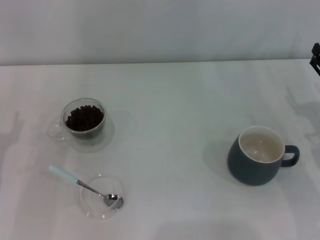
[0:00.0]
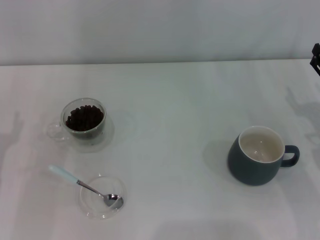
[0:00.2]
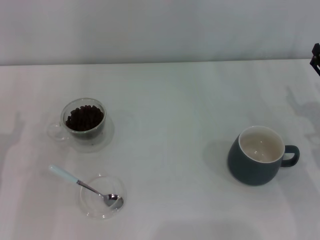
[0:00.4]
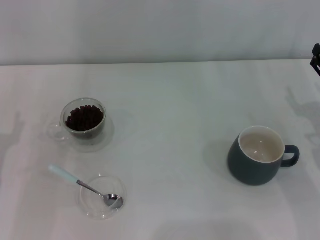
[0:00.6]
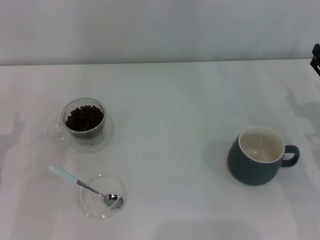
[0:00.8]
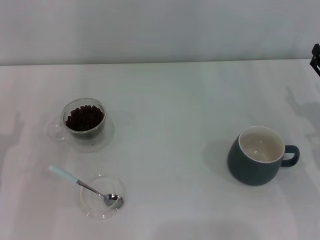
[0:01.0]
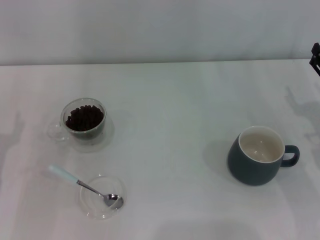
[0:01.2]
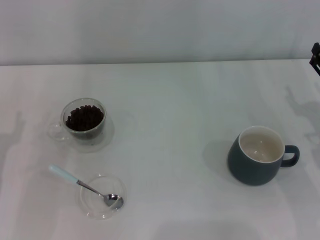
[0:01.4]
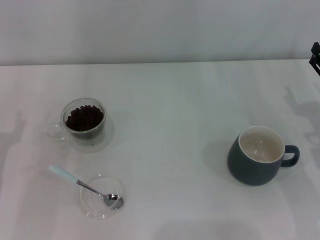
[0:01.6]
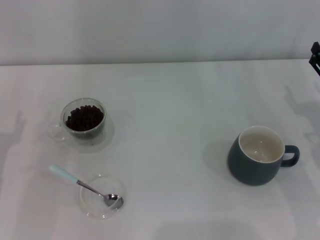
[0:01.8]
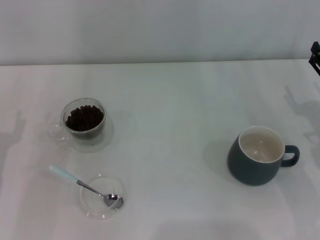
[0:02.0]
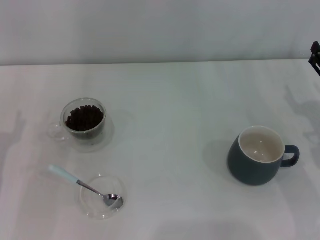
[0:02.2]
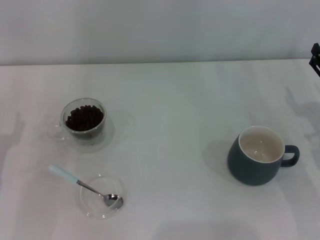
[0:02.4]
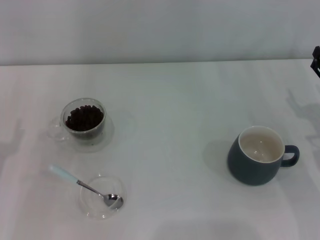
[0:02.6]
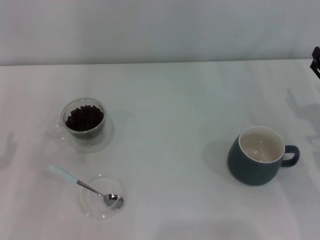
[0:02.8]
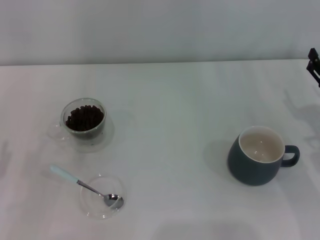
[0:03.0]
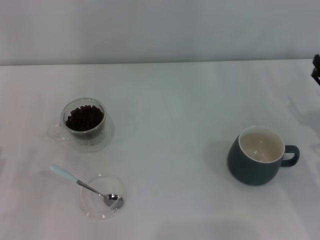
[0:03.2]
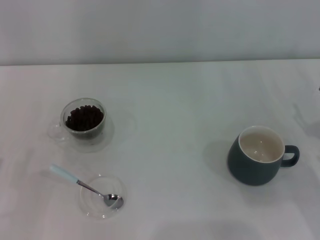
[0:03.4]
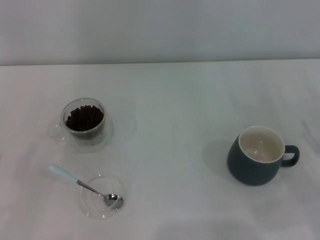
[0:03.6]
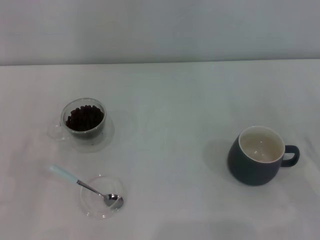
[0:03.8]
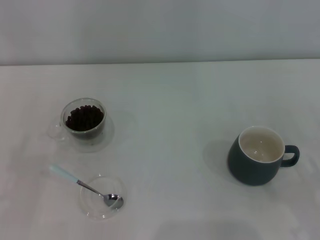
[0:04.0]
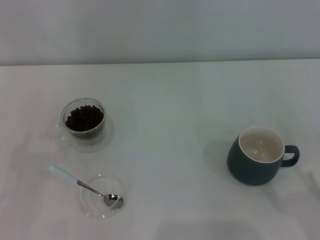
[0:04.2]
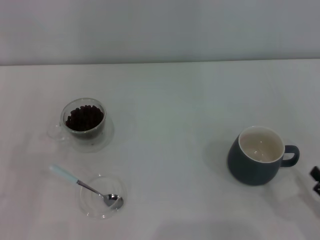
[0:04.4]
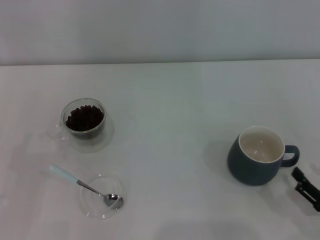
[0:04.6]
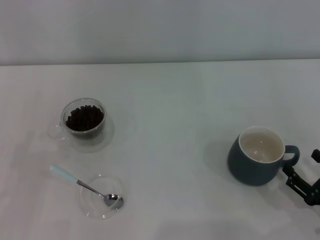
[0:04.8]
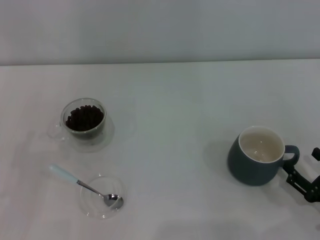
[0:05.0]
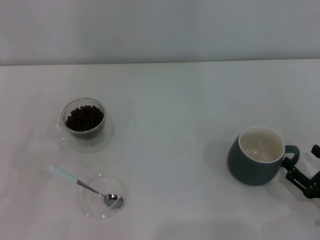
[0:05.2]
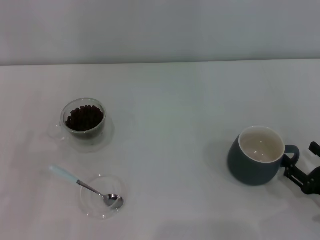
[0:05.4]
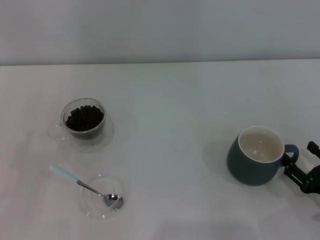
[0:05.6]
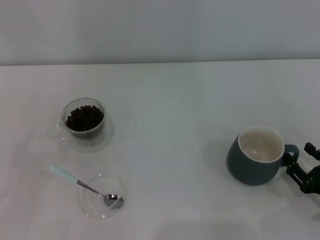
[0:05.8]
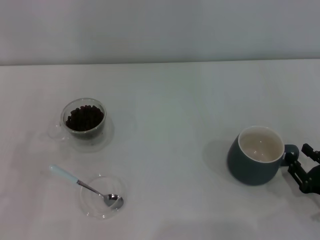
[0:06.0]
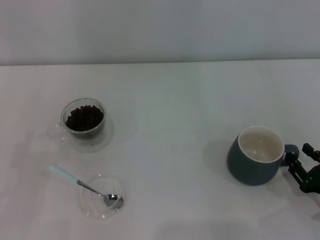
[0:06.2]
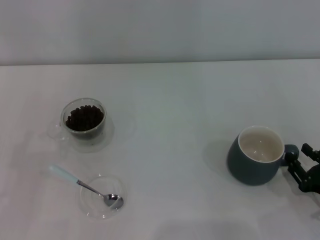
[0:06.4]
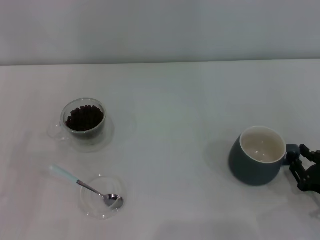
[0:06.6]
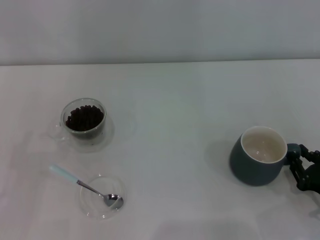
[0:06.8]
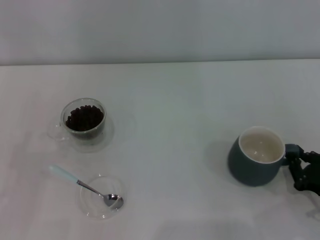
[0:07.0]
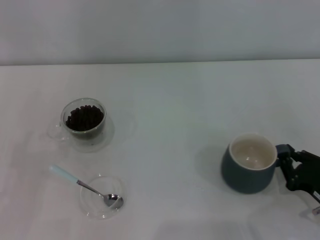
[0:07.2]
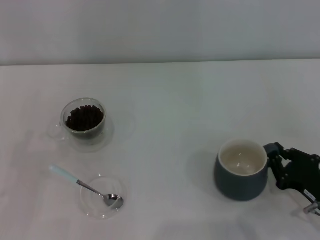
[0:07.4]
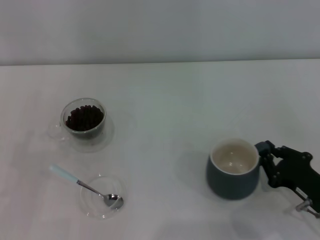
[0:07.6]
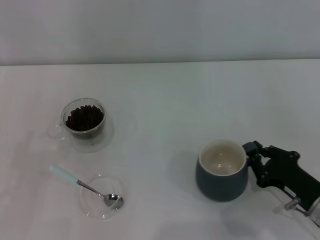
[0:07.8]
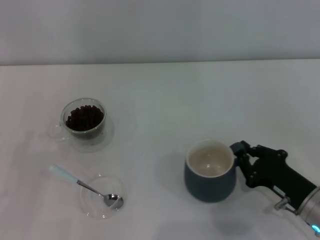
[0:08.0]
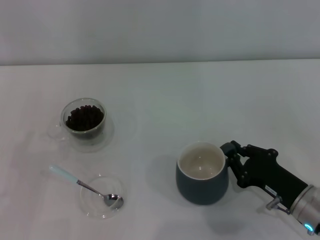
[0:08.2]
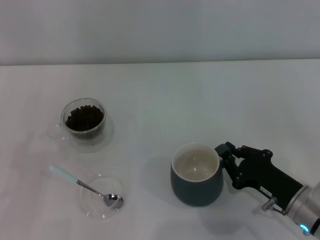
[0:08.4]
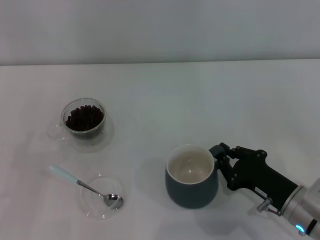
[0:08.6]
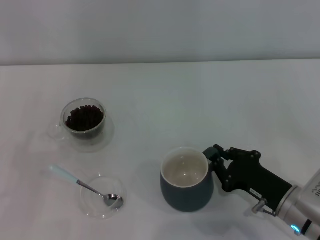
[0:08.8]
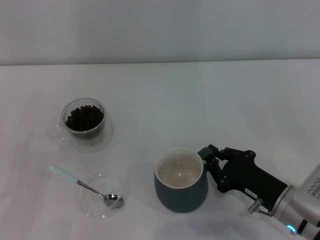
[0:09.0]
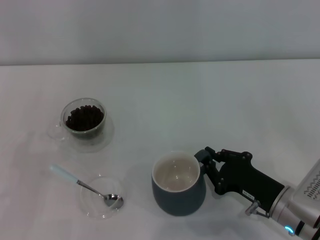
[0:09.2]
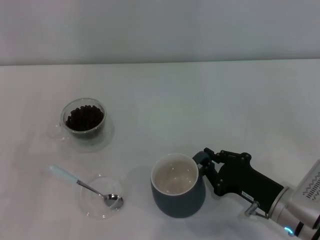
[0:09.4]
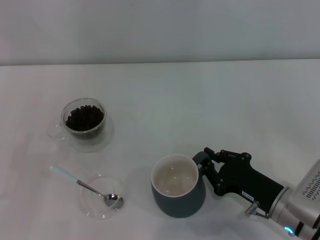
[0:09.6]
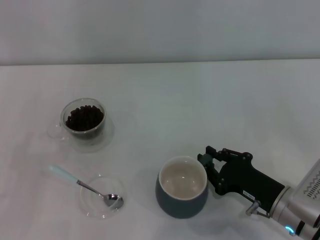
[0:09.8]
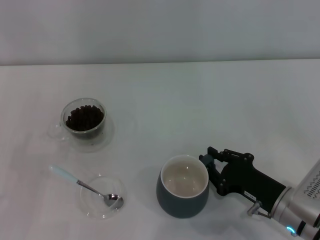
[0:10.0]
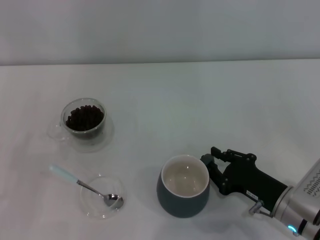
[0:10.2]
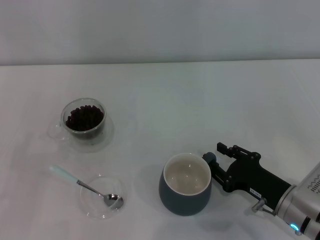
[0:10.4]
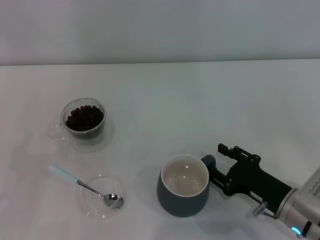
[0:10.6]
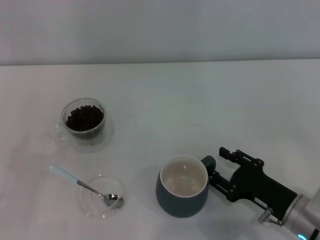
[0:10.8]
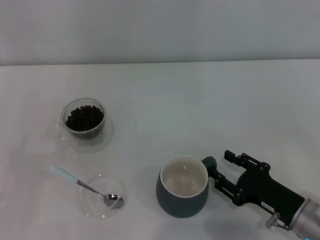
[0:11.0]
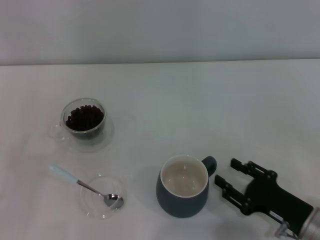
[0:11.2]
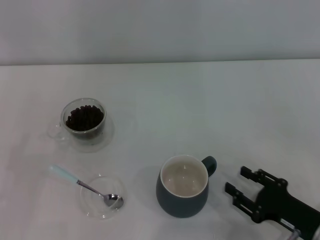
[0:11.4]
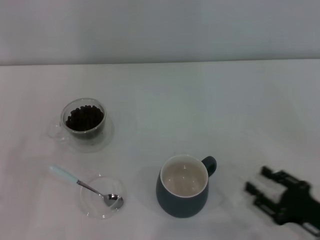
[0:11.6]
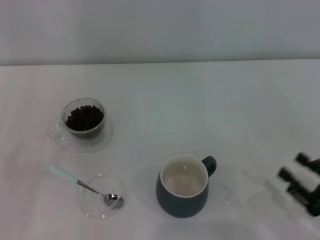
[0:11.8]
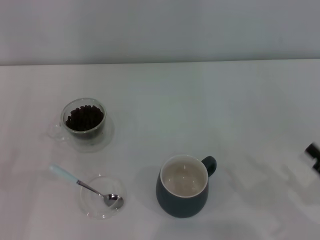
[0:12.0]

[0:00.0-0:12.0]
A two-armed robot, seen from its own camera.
Task of the whole recording: Use a blue spoon to take out the coffee beans from the glass and pour them into the gray cup.
Step, 0:00.0 to 0:11.2: Move the cup to the center of view with the left gripper.
0:00.0 to 0:01.6: Both grippers stay about where they are.
0:03.0 to 0:04.4: The right gripper goes roughly 15 cm backward.
0:04.4 to 0:06.0: The right gripper shifts roughly 5 cm forward, and closes its fingers.
0:06.0 to 0:07.6: The right gripper closes.
0:07.6 to 0:09.0: The right gripper travels to the left by roughly 5 cm.
0:09.0 to 0:10.4: The two grippers keep their place.
0:10.4 to 0:12.0: The right gripper travels to the right and backward by approximately 15 cm, and opens its fingers.

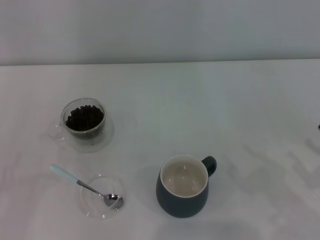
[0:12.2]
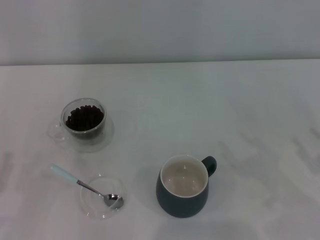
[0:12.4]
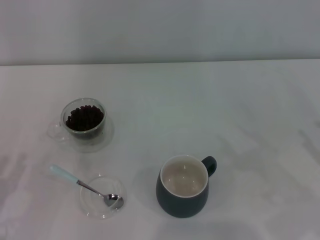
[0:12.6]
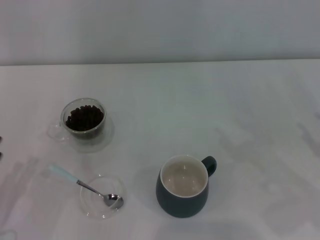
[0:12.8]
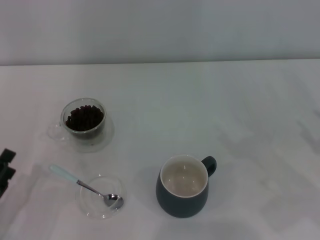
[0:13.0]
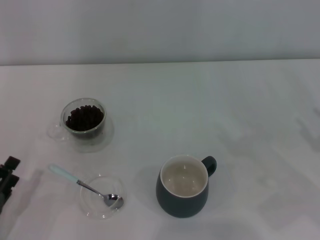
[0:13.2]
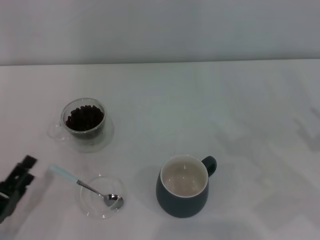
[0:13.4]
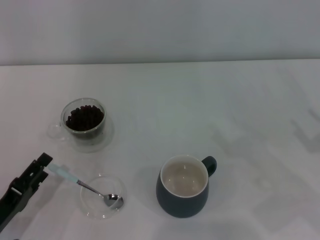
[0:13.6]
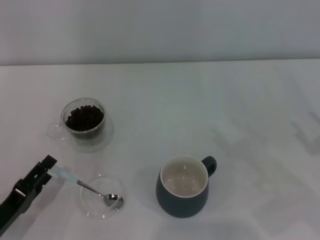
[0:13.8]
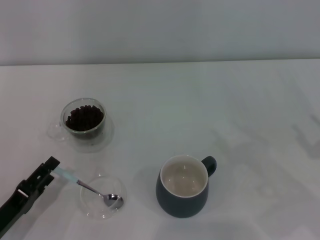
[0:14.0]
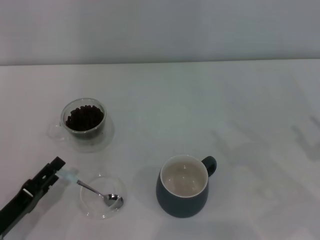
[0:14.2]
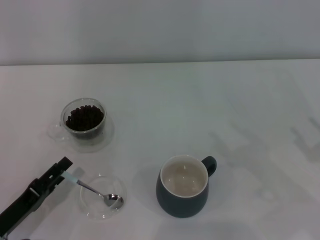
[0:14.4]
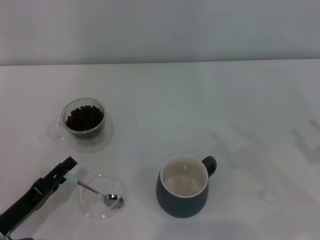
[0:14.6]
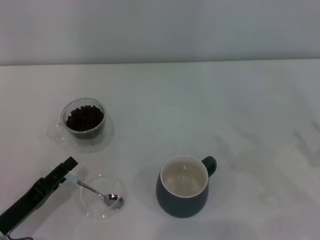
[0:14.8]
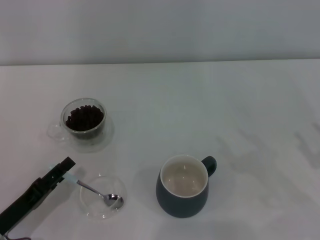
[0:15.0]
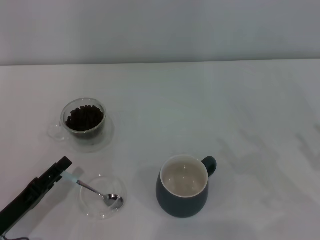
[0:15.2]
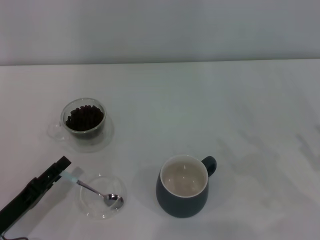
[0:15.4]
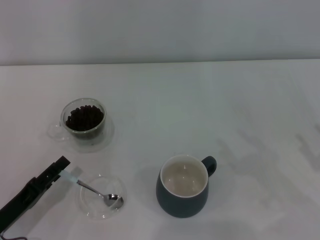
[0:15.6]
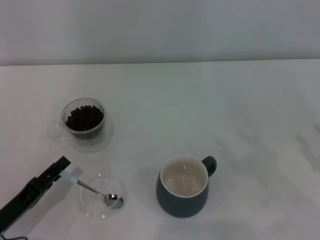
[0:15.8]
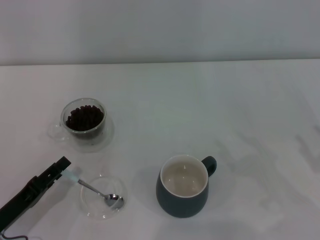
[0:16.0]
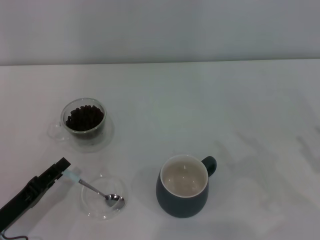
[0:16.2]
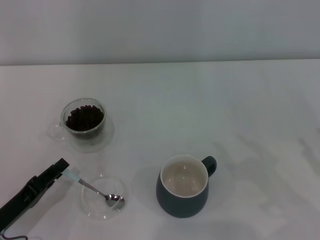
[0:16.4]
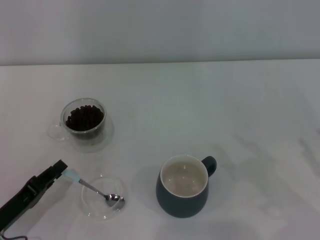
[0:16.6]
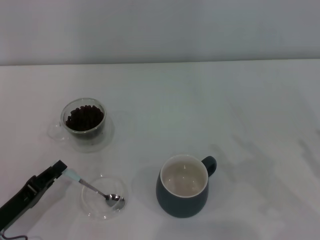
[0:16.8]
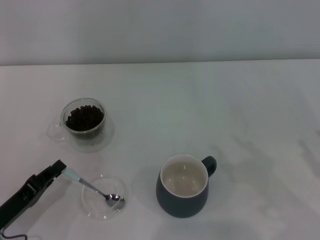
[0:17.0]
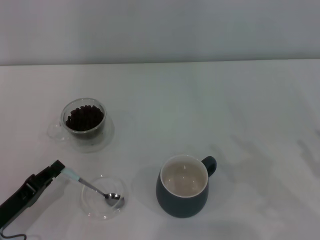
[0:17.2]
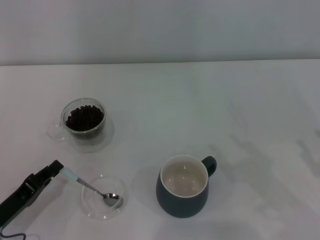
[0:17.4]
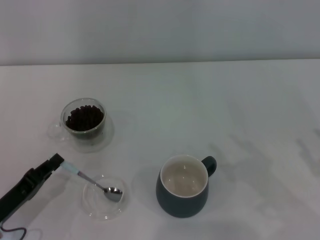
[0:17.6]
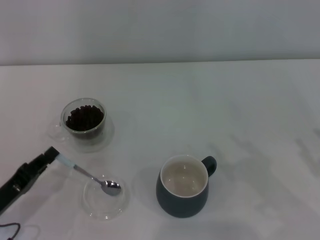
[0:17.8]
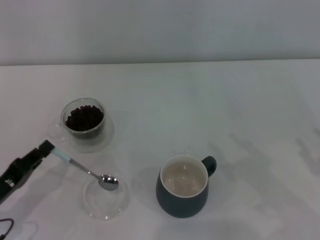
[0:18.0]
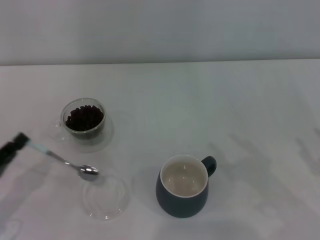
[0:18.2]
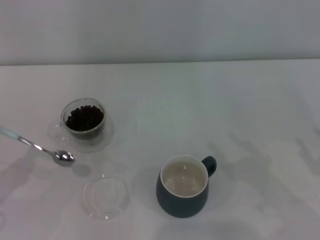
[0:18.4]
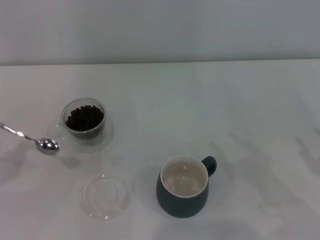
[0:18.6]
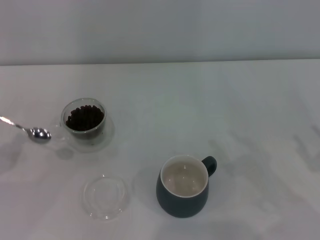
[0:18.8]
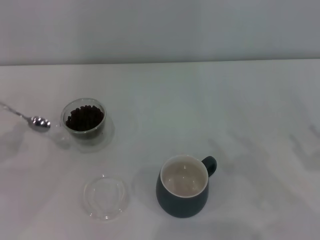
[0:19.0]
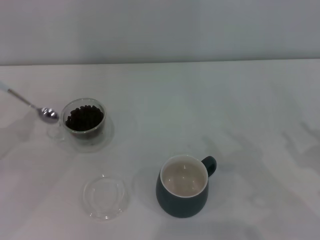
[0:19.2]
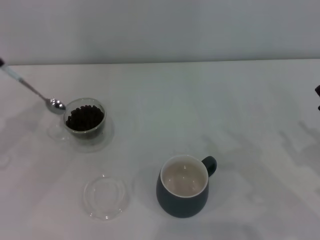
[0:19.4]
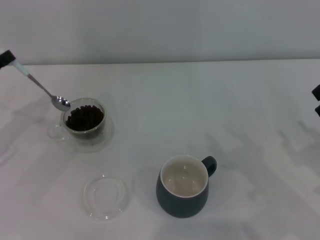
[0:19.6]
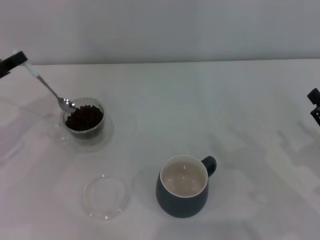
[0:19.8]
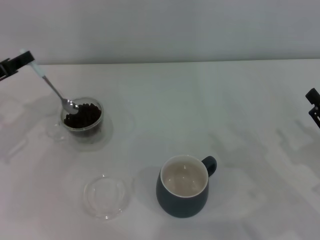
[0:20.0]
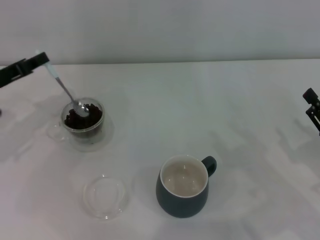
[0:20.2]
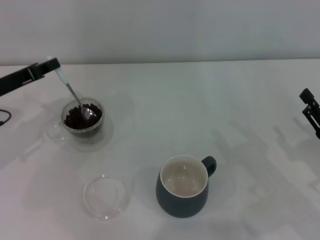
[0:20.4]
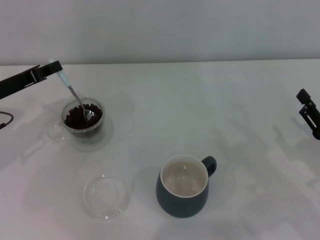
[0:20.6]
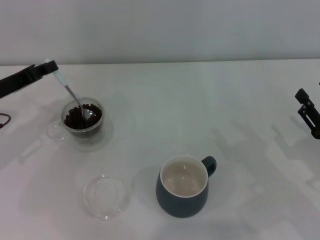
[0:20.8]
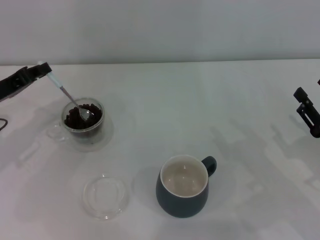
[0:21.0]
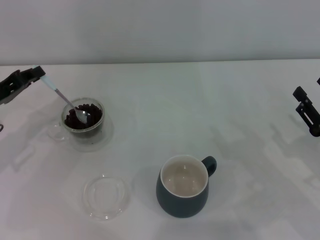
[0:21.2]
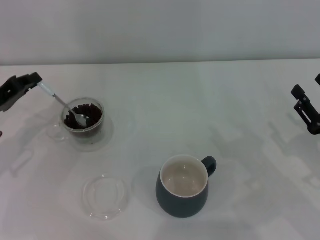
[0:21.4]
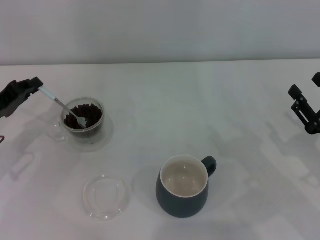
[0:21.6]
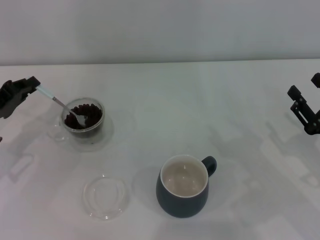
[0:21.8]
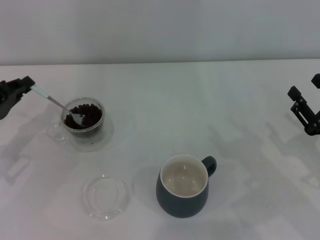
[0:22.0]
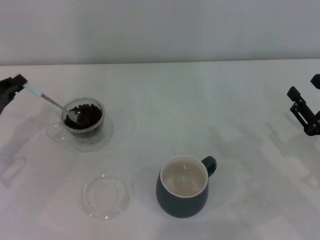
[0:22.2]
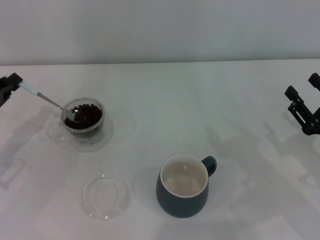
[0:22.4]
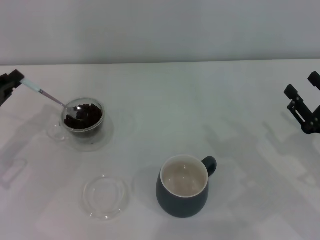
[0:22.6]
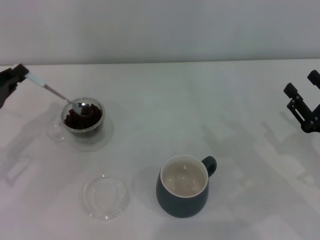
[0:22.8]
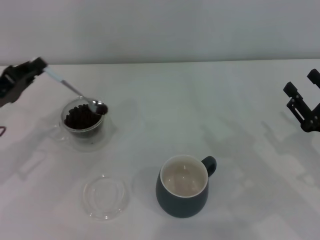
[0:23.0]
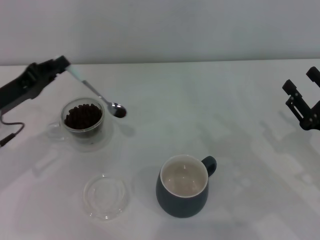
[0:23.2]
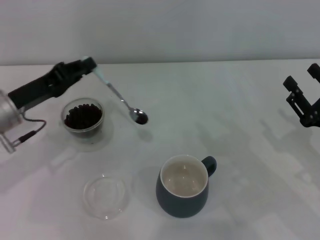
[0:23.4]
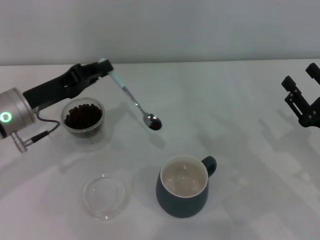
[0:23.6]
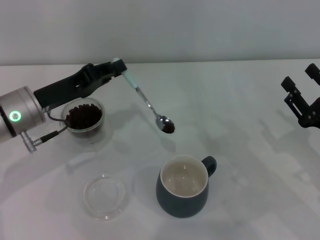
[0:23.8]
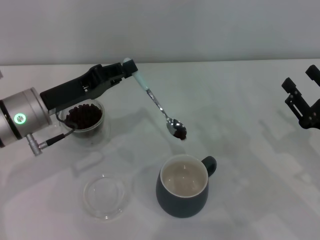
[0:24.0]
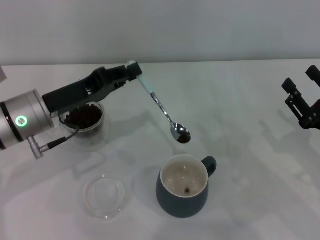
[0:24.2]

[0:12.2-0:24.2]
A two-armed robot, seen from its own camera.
Task of the whole recording: Use a blue spoon to take out the coffee beans from the glass and pour them into the gray cup.
Step, 0:12.2 to 0:18.0: Pick up the spoon with the right gripper.
0:12.2 to 0:13.8: The left gripper travels to the right by some 5 cm.
0:13.8 to 0:15.2: The grippers make only small movements.
0:15.2 to 0:16.6: The left gripper closes its fingers.
0:16.6 to 0:18.2: The grippers stay close to where they were, moving slightly.
0:18.2 to 0:19.8: The left gripper moves forward and upward, roughly 15 cm.
0:19.8 to 0:21.2: The grippers stay close to where they were, moving slightly.
0:21.2 to 0:22.6: The grippers stay close to where they were, moving slightly.
0:22.6 to 0:24.2: The left gripper is displaced to the right by about 15 cm.
